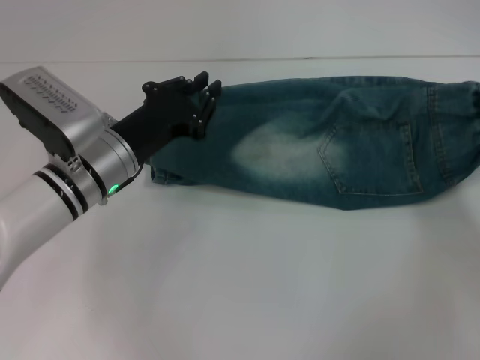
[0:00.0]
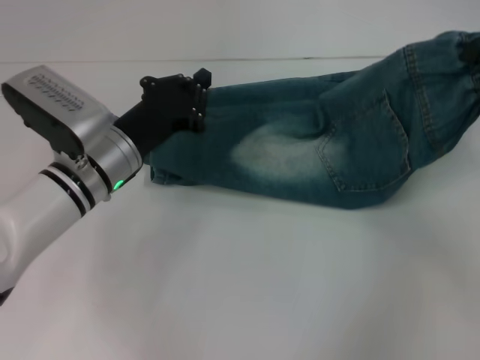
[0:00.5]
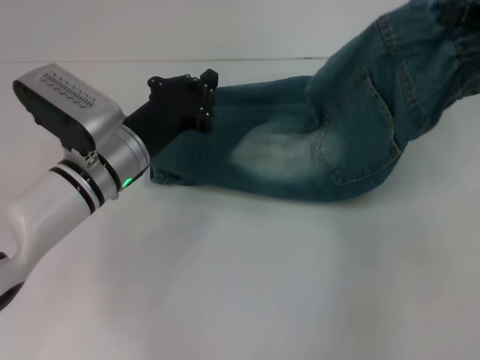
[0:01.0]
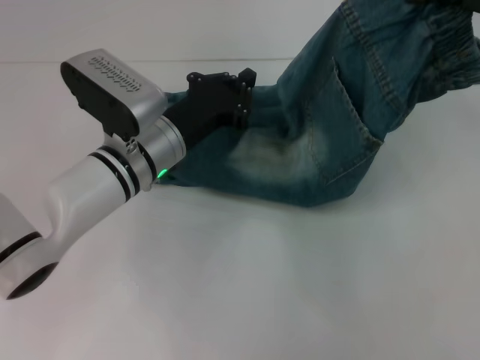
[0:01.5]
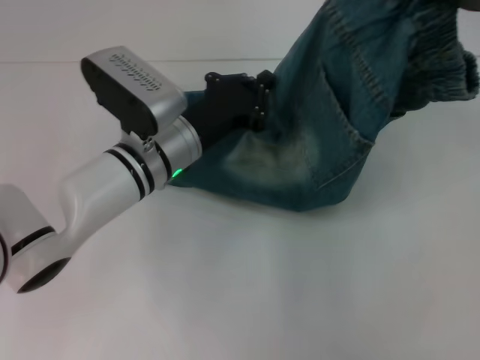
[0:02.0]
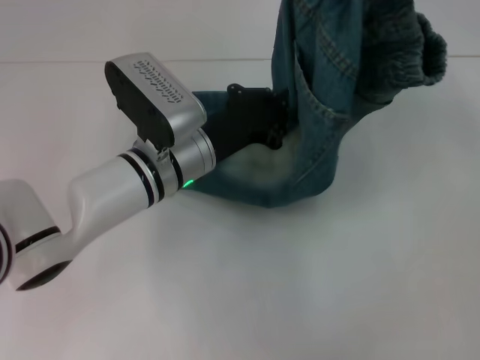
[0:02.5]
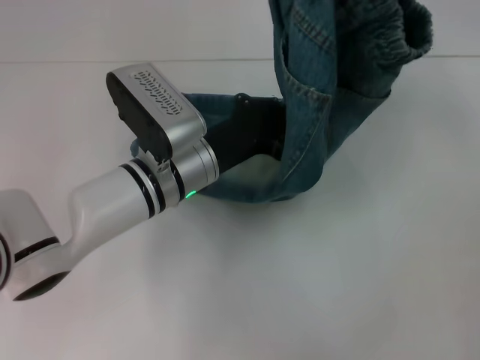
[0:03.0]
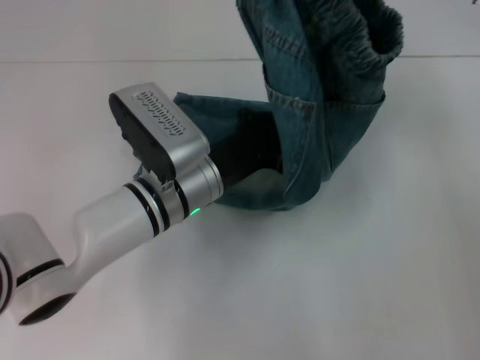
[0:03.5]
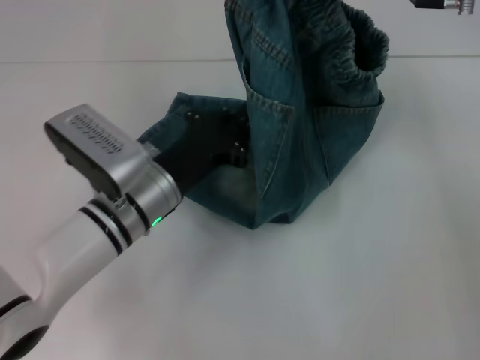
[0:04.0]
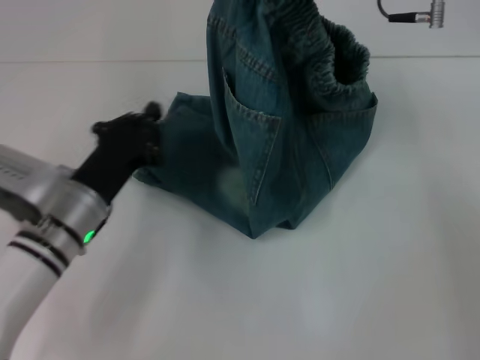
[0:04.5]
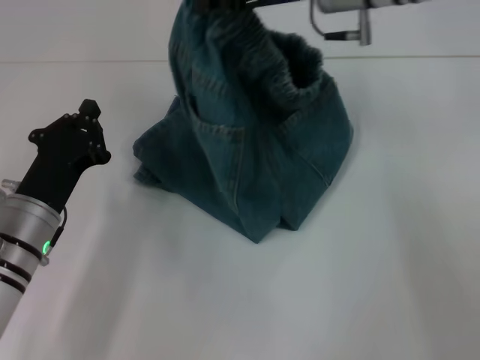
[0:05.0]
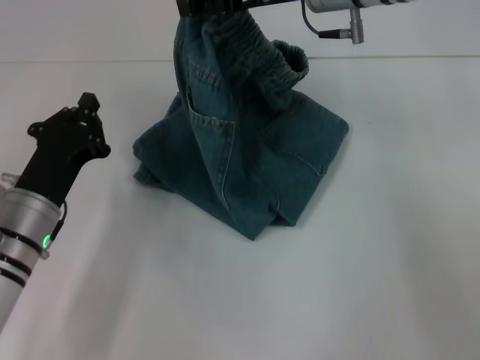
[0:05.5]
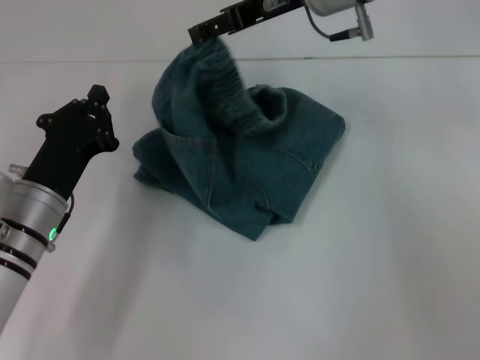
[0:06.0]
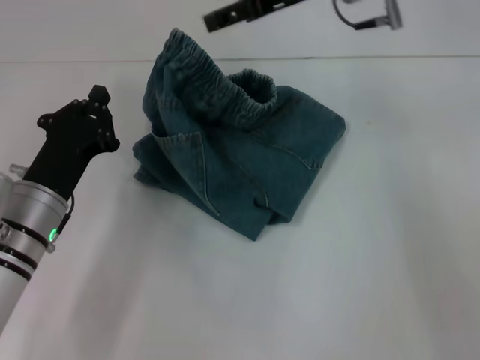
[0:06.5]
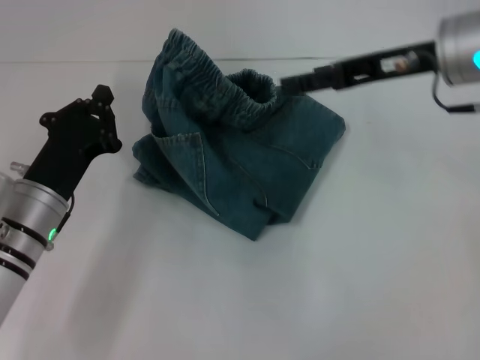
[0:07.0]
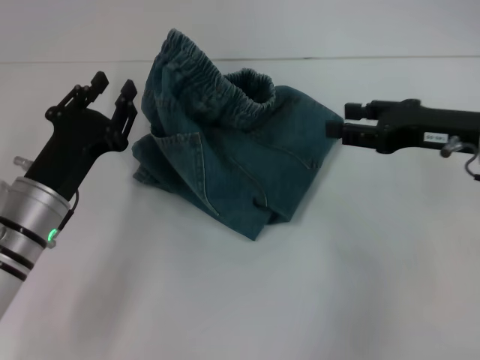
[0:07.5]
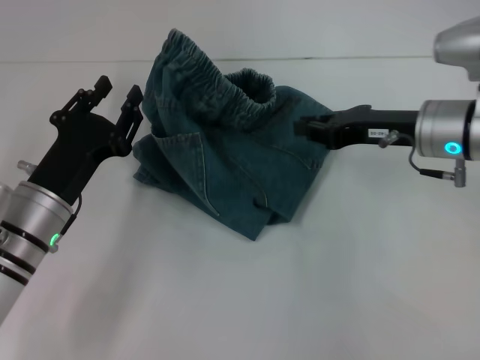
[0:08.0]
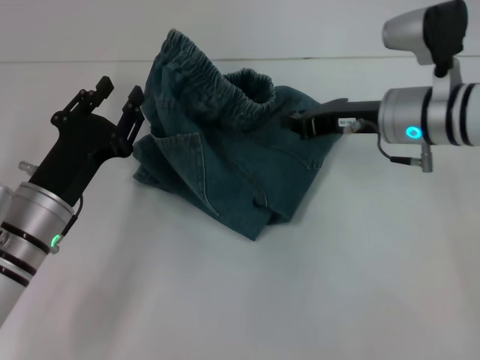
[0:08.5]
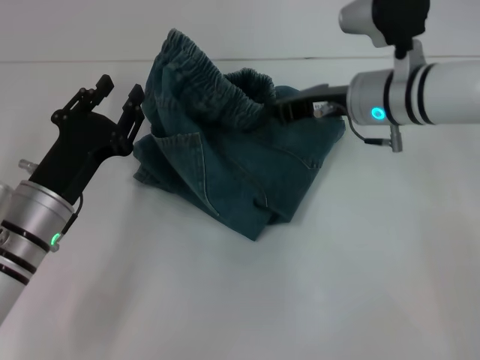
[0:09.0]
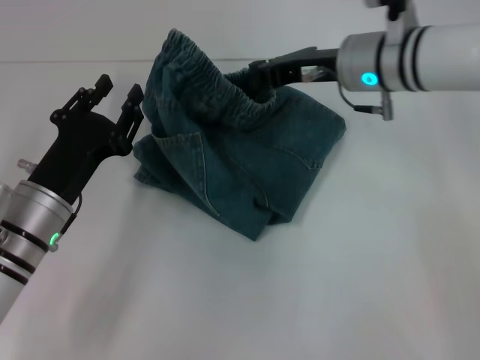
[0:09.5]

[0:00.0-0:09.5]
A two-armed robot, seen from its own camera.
Step, 0:00.0 to 0:03.5: Press the middle of the pants with your left hand.
Step, 0:04.0 to 0:06.0: Fold to the left with your right hand.
0:00.0 to 0:02.0: The right gripper moves upward and to the left, some 20 cm. Meanwhile the left gripper goes about 5 cm to the right, and closes.
0:02.0 to 0:04.0: The left gripper moves about 5 cm. Meanwhile the right gripper is displaced to the left and forward by about 10 cm.
0:04.0 to 0:05.5: Both grippers travel together to the left, about 10 cm. The right gripper opens its fingers.
0:05.5 to 0:07.5: The right gripper is displaced to the right, backward and downward by some 20 cm.
0:07.5 to 0:09.5: The right gripper goes approximately 15 cm to the left and forward, and closes.

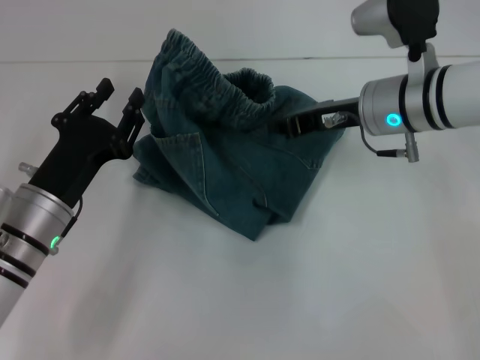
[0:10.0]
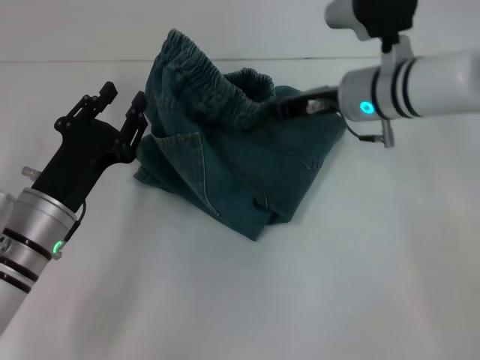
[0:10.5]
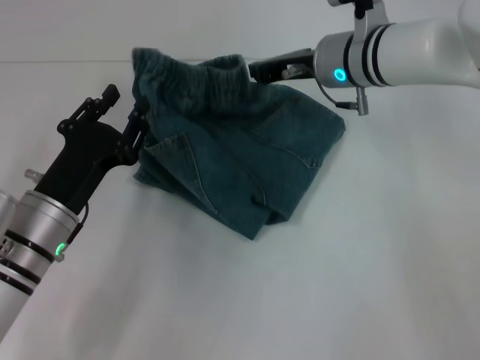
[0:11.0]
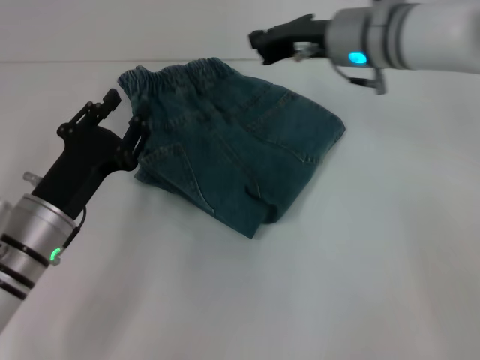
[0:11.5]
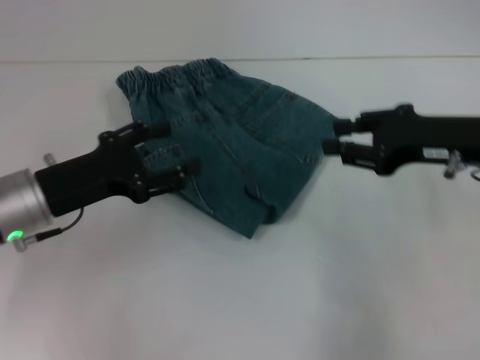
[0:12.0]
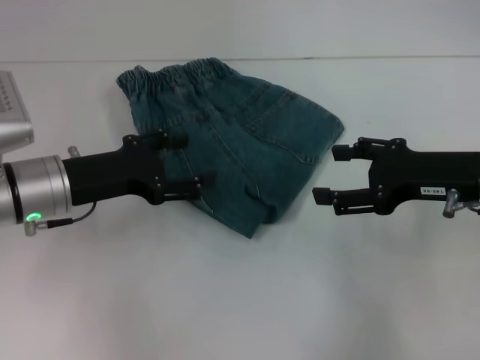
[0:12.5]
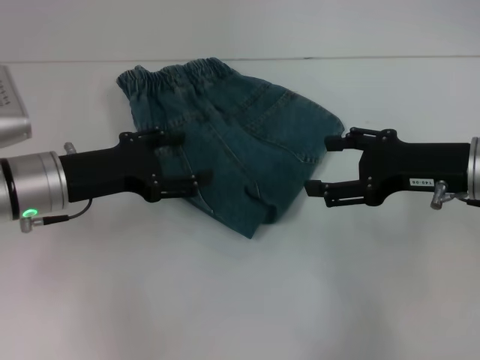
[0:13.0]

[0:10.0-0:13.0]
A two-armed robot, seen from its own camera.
0:10.0 to 0:11.5: The right gripper changes place by approximately 5 cm.
0:11.5 to 0:13.0: The right gripper travels backward and to the right by approximately 15 cm, and opens, while the left gripper travels upward and forward by roughly 10 cm, and opens up.
